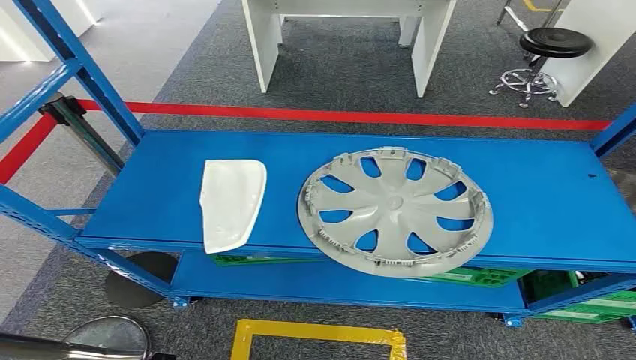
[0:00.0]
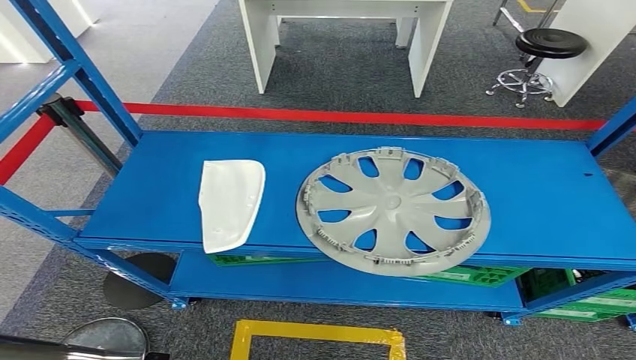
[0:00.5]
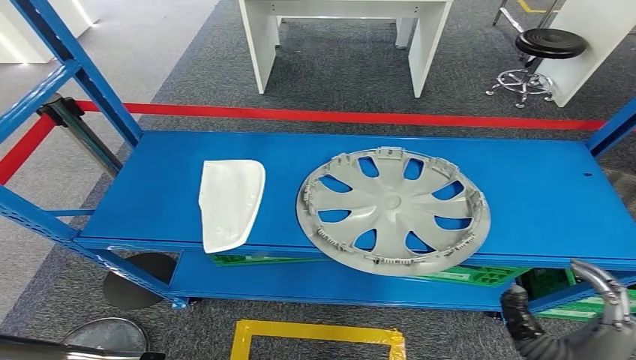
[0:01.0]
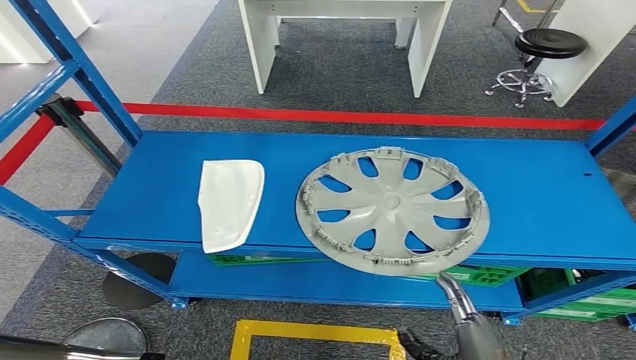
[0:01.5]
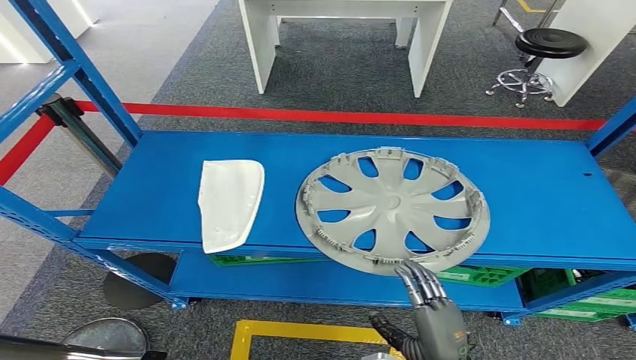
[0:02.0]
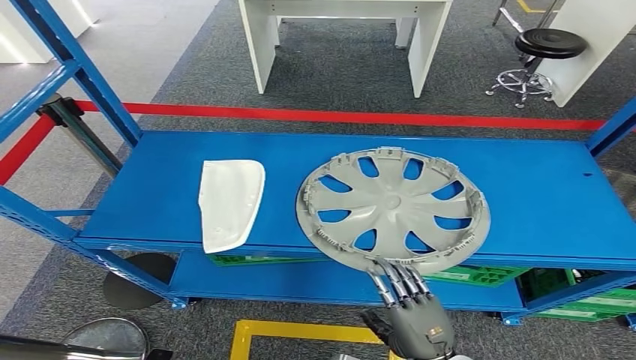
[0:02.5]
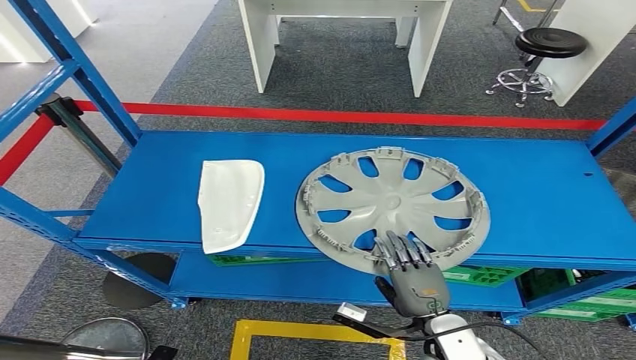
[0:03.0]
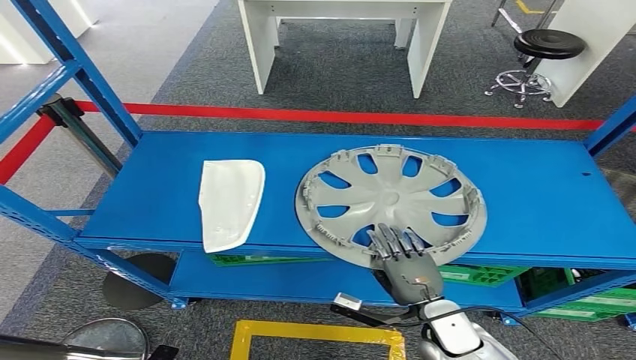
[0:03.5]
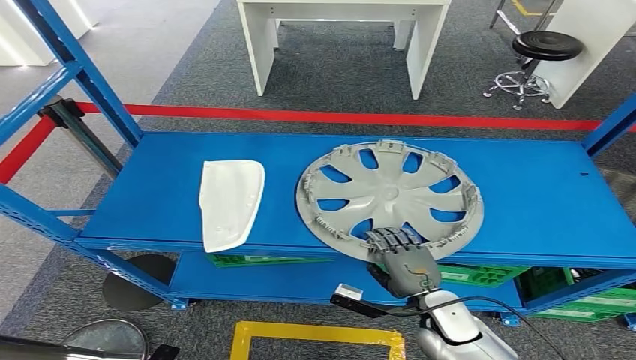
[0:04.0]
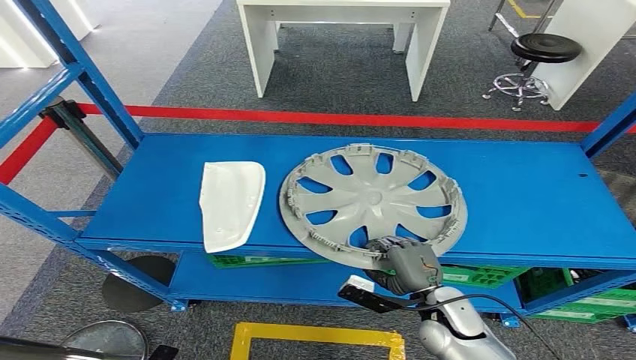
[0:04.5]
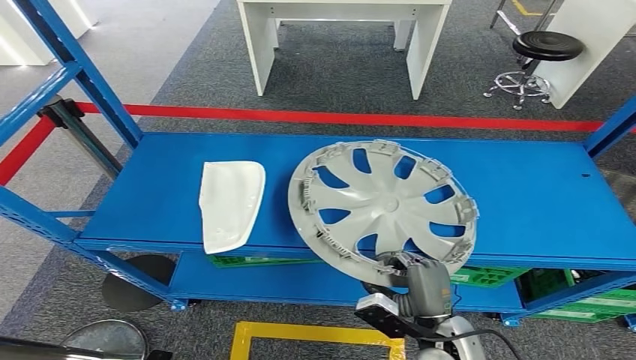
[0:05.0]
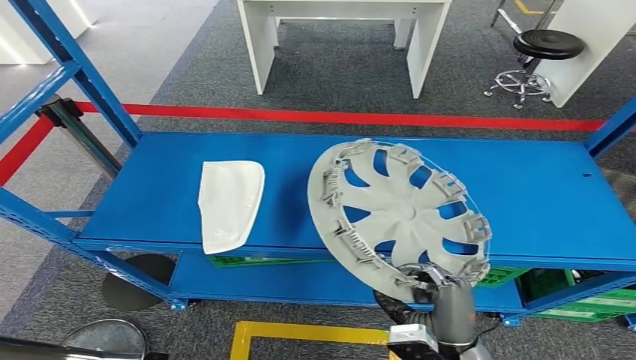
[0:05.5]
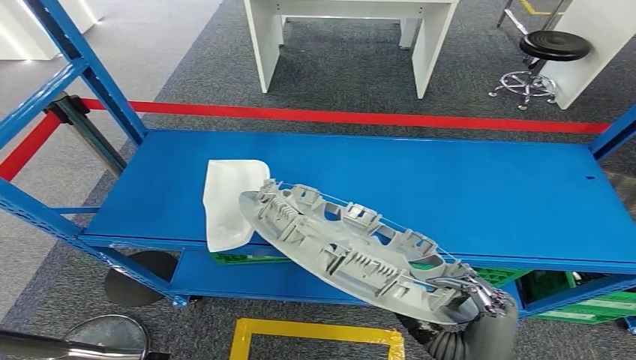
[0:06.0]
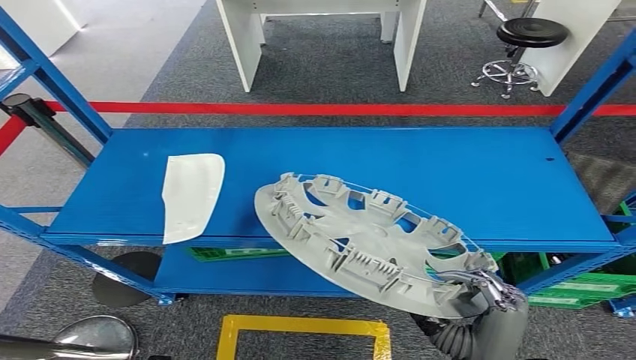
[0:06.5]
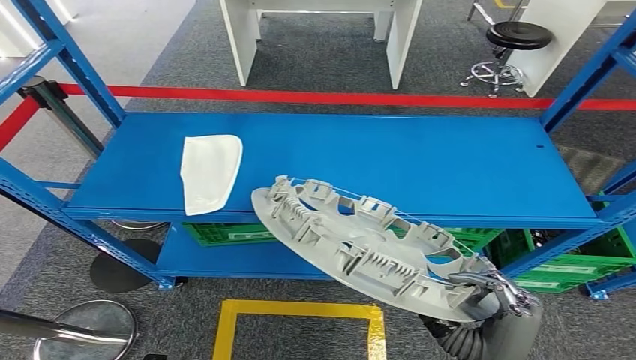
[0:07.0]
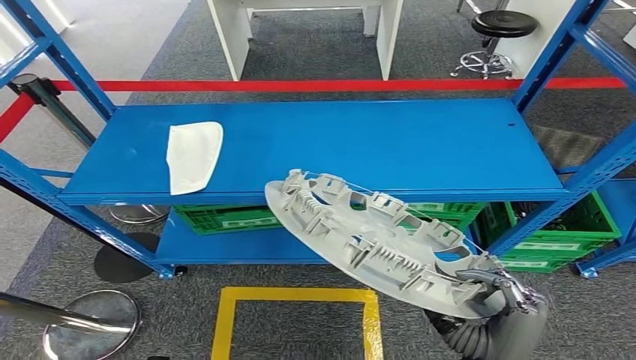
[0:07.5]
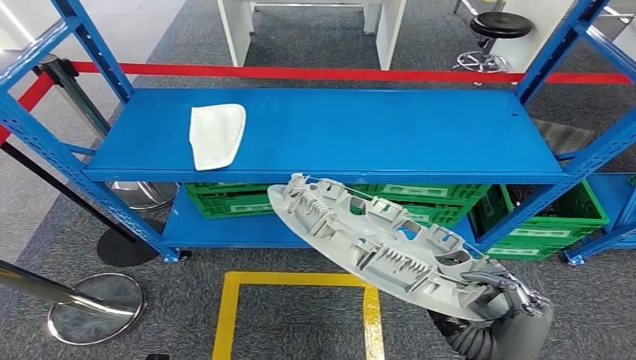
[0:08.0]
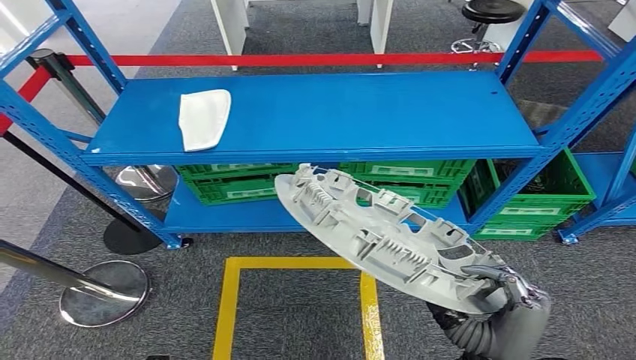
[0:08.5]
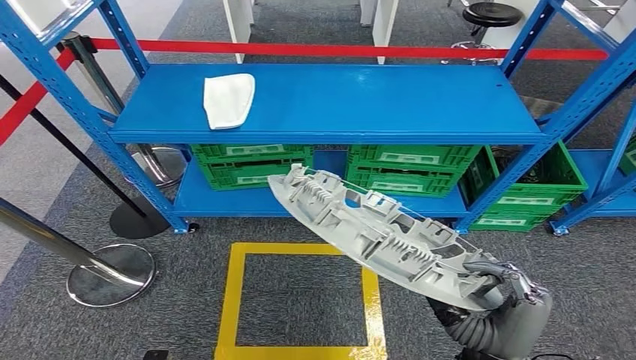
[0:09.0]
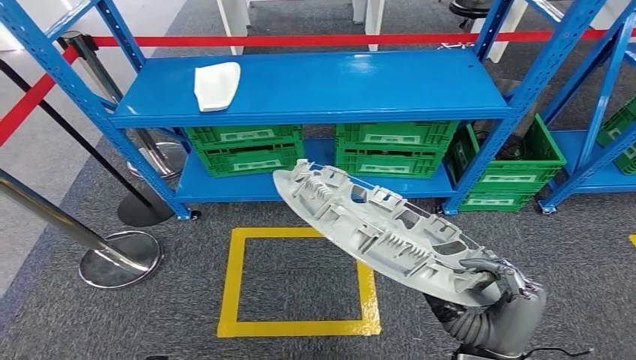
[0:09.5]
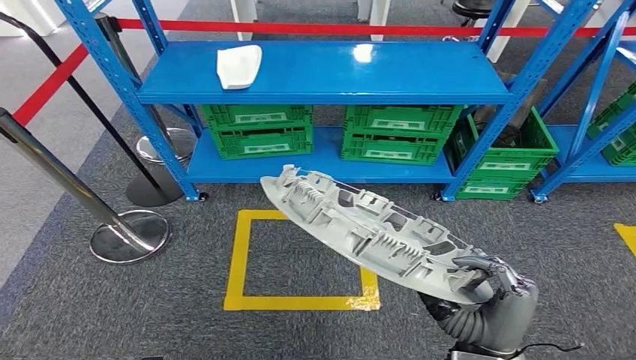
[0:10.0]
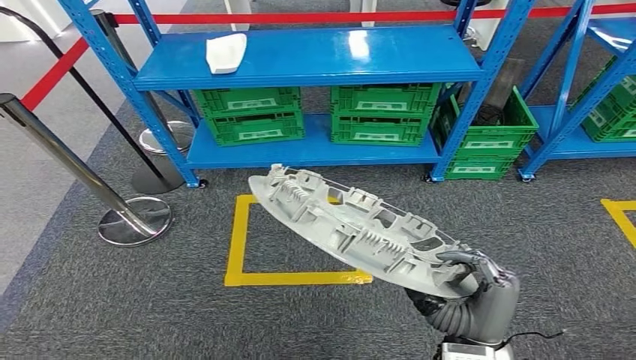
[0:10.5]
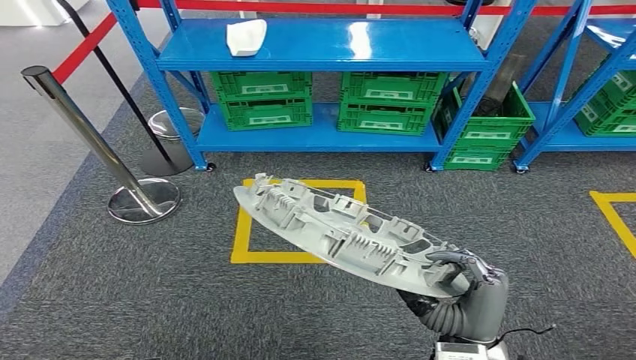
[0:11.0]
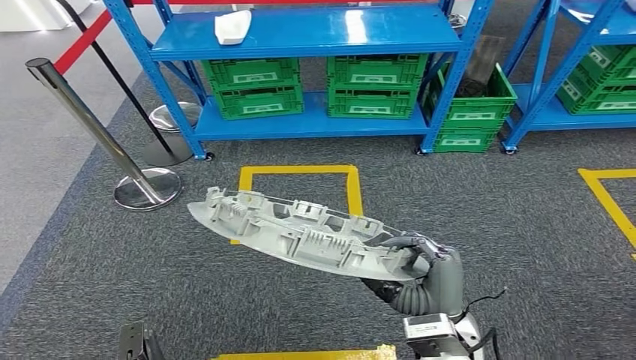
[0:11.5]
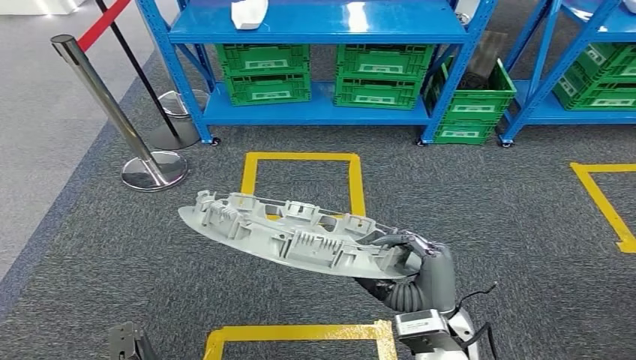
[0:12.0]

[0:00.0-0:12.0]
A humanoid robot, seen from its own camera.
Step, 0:00.0 to 0:06.5: Pick up the small component from the shelf.
0:02.0 to 0:04.0: The right hand heads forward, covering approximately 10 cm.

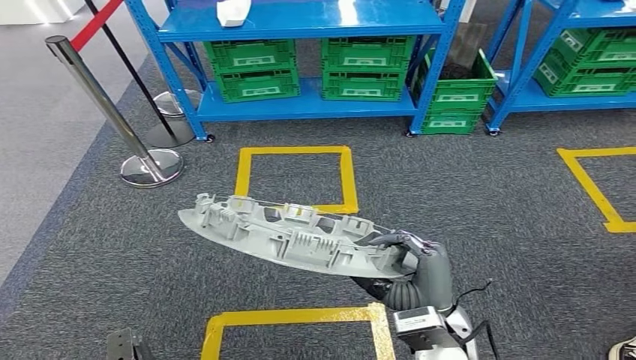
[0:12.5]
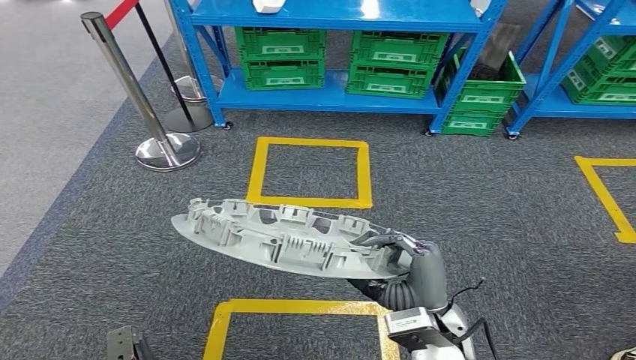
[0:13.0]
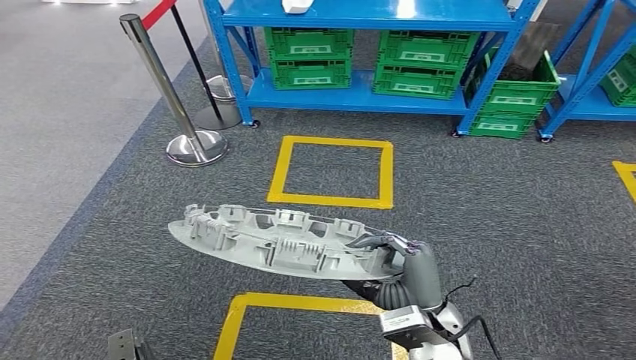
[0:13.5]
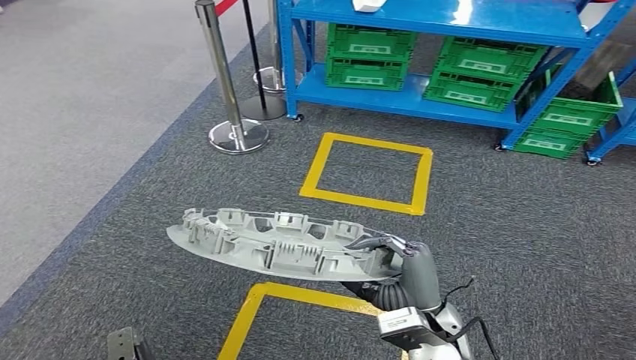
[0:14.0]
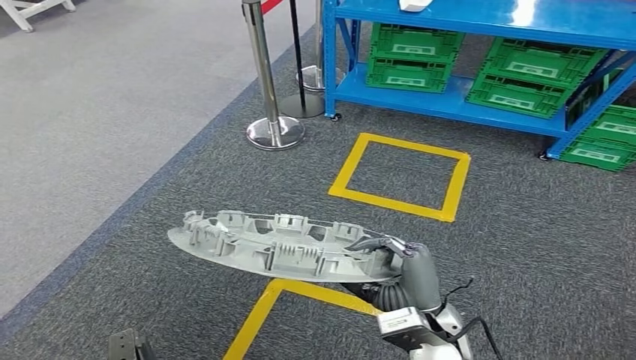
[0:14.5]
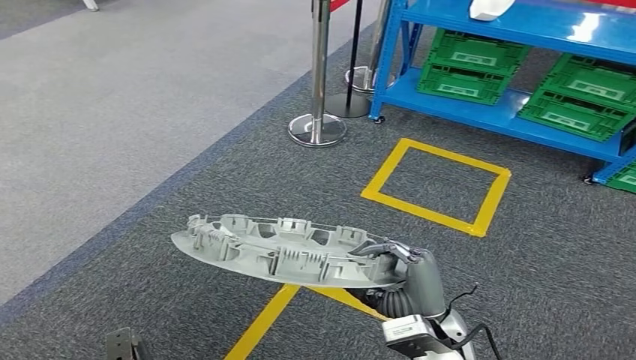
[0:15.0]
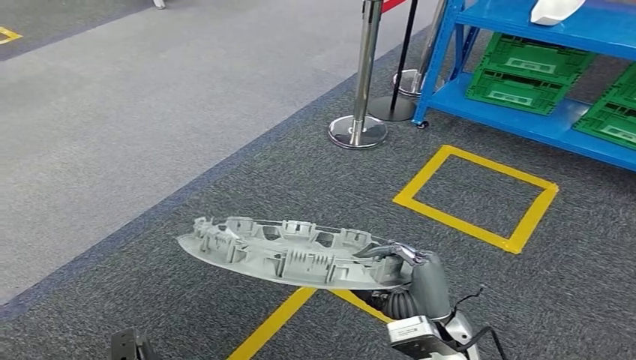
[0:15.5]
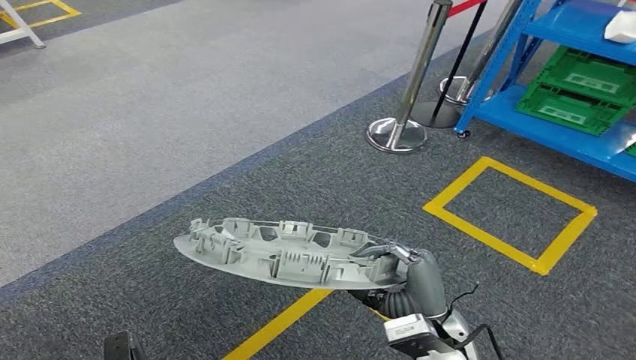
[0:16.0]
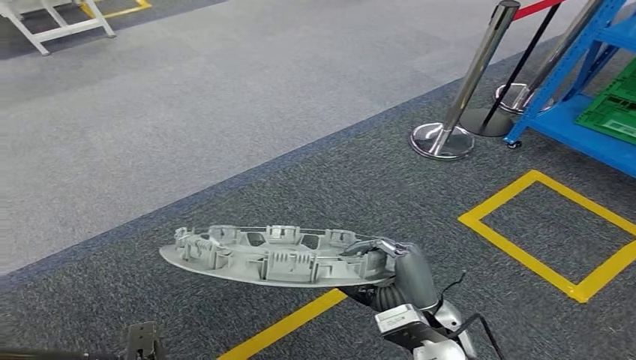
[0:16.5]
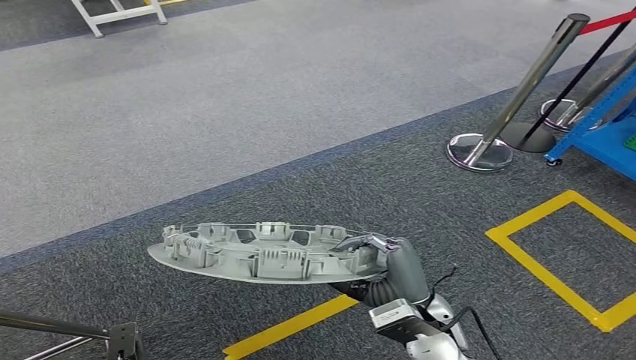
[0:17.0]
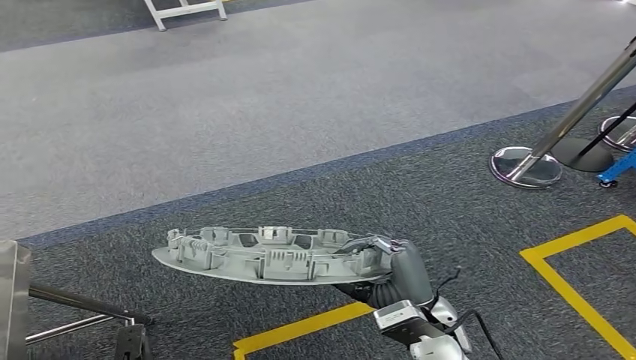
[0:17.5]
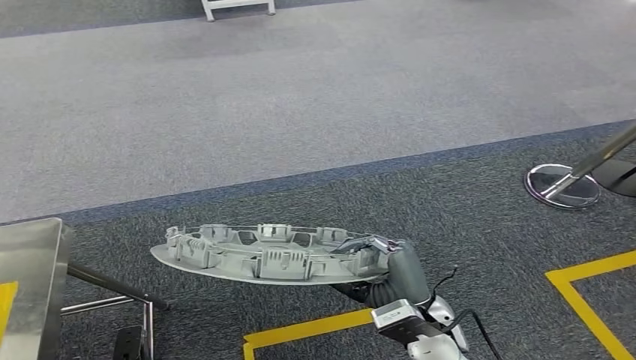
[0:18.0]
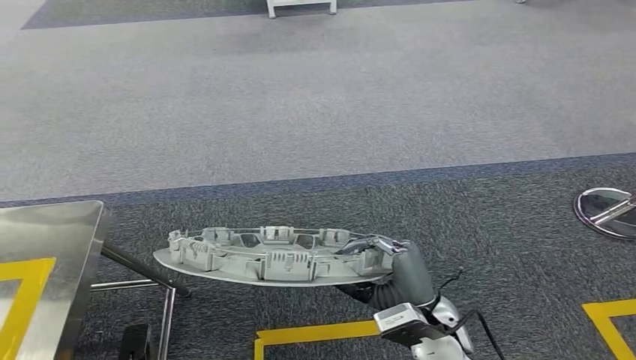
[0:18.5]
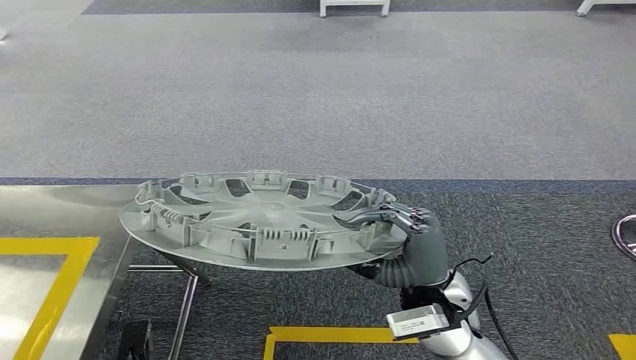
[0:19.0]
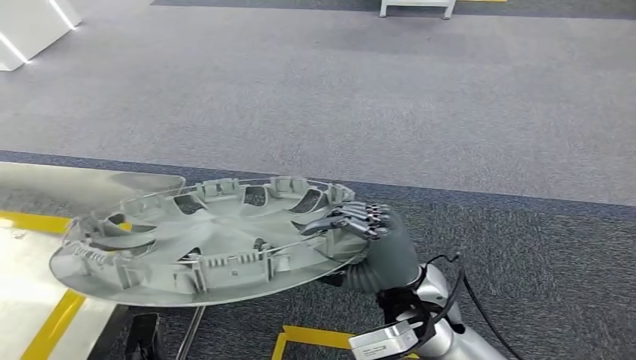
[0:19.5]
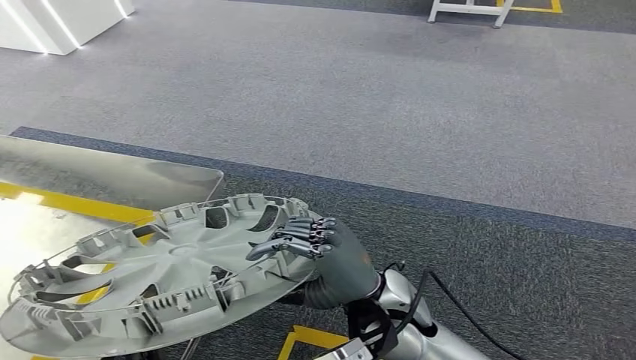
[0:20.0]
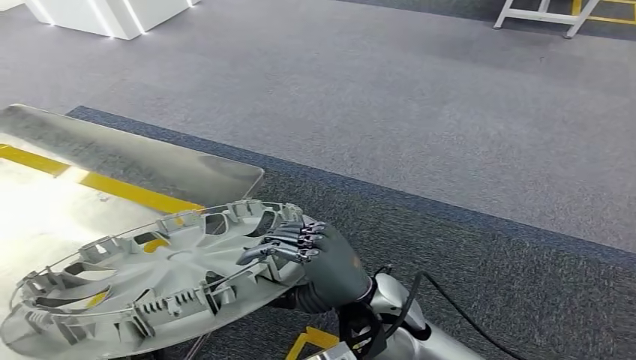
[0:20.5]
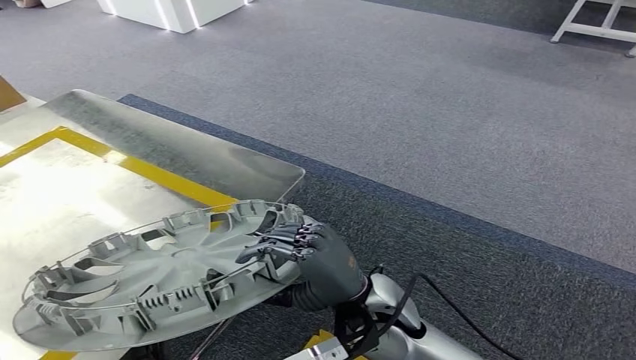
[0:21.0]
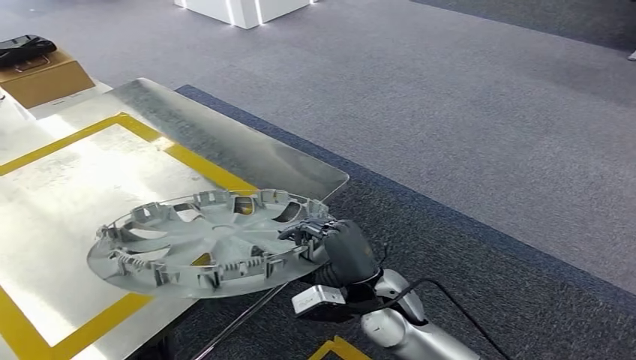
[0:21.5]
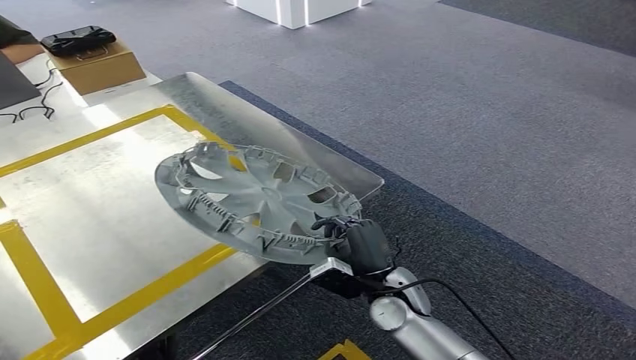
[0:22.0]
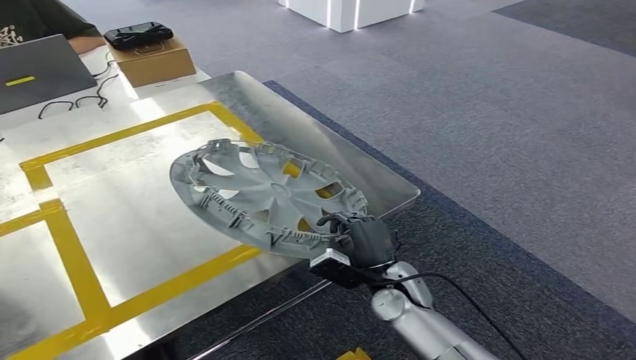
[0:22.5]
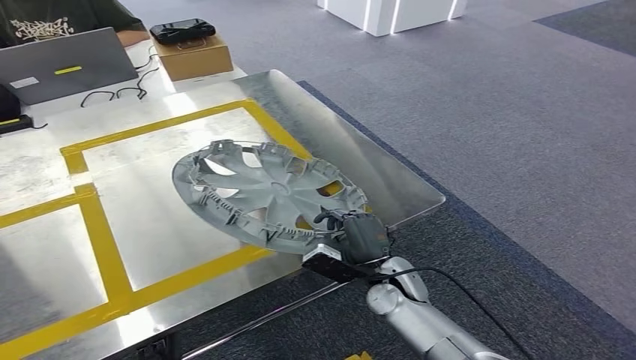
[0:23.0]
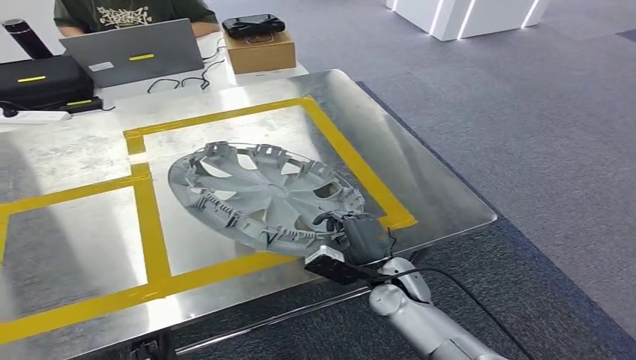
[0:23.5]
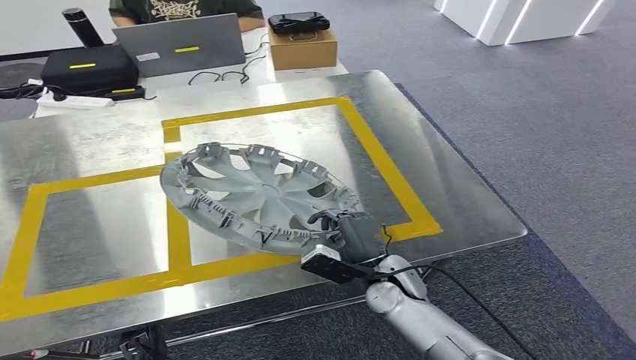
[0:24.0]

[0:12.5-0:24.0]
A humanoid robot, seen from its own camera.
Step, 0:12.5 to 0:21.0: Move the small component to the workbench.
